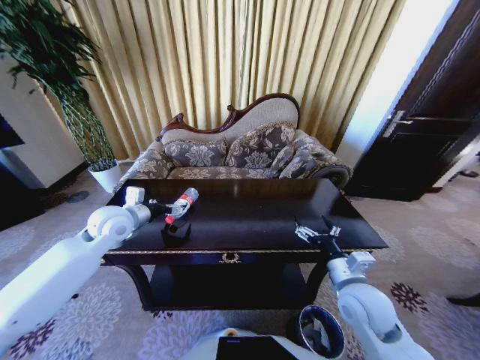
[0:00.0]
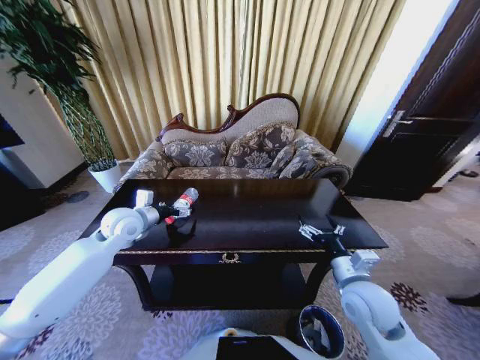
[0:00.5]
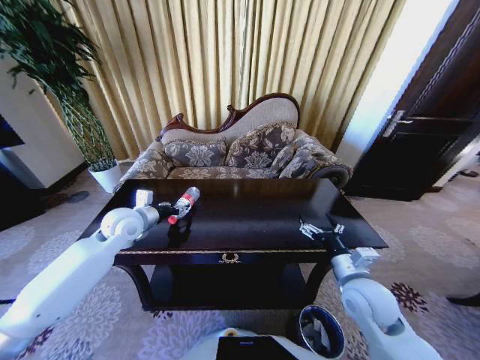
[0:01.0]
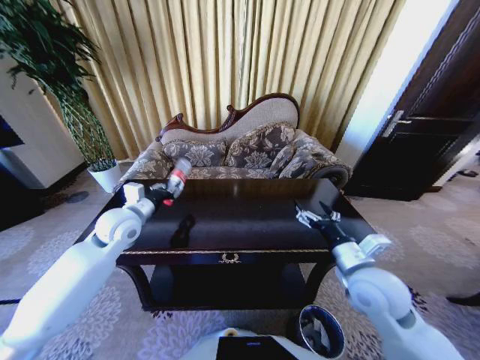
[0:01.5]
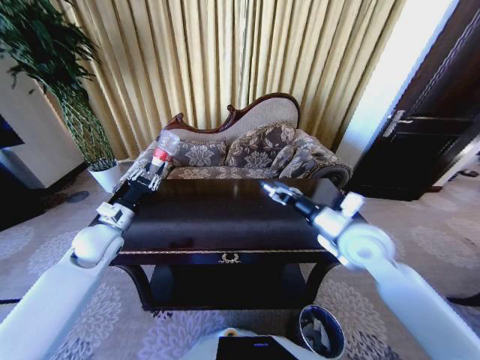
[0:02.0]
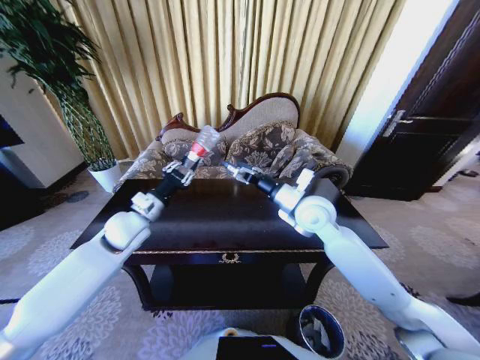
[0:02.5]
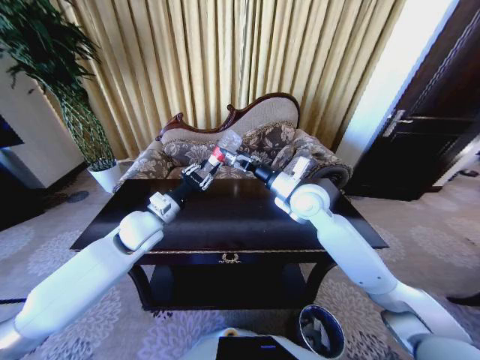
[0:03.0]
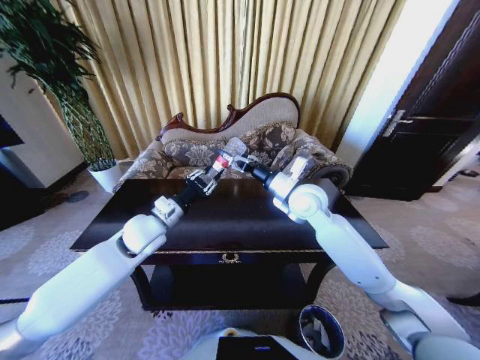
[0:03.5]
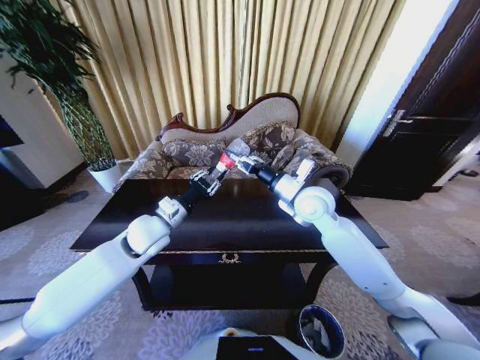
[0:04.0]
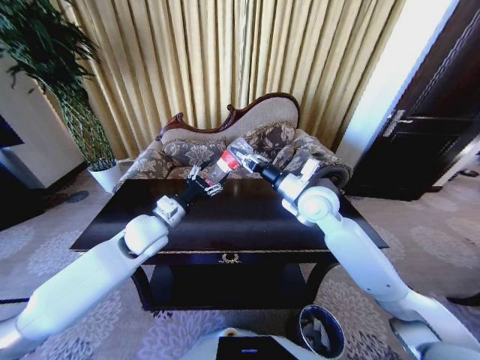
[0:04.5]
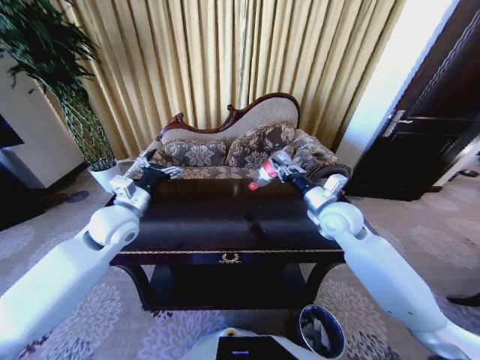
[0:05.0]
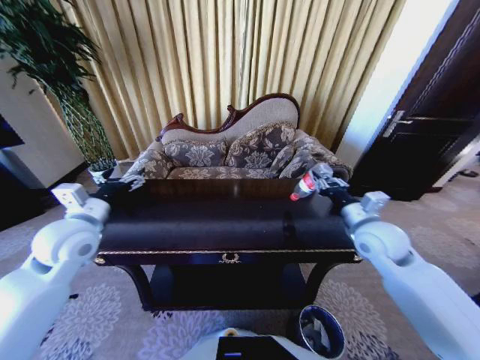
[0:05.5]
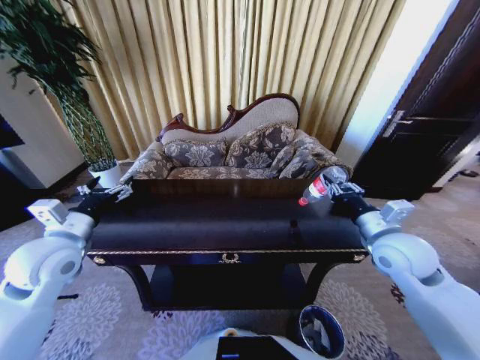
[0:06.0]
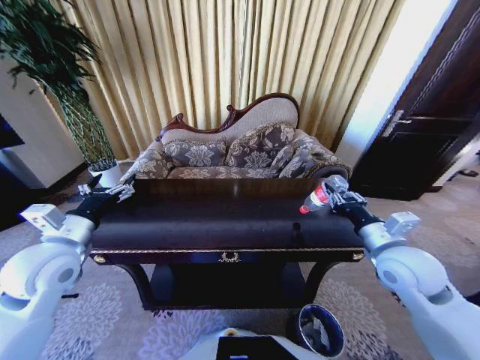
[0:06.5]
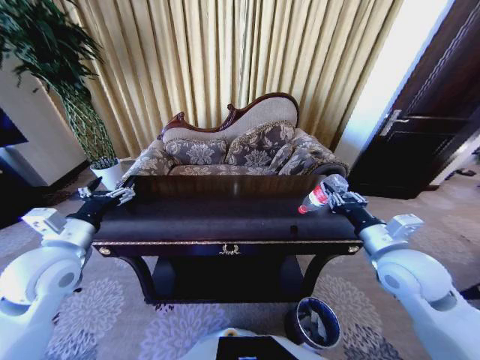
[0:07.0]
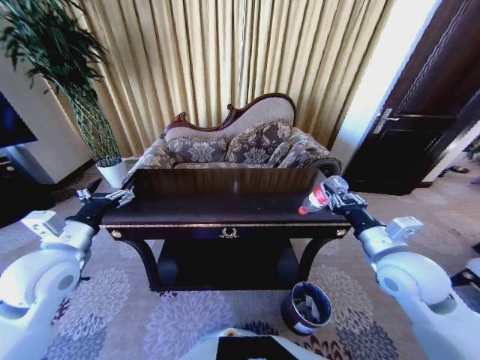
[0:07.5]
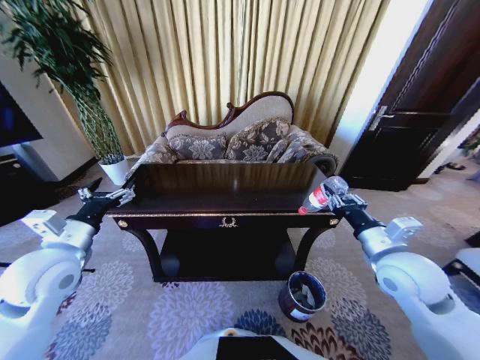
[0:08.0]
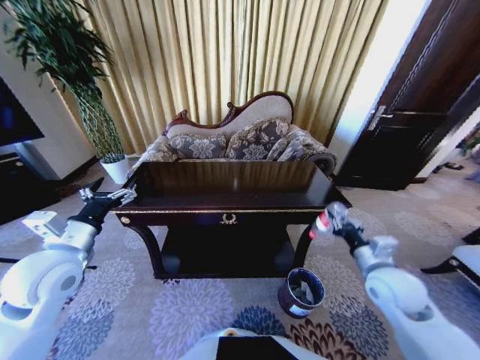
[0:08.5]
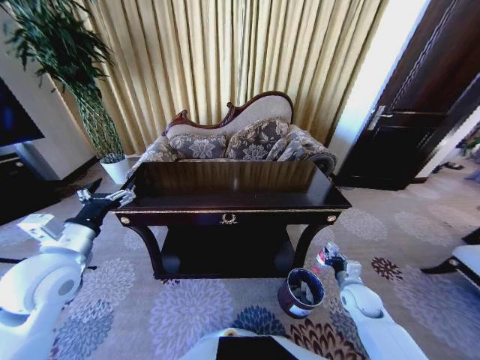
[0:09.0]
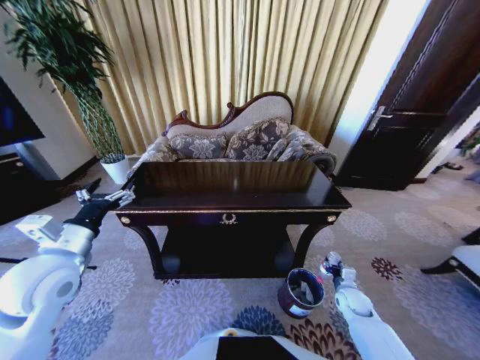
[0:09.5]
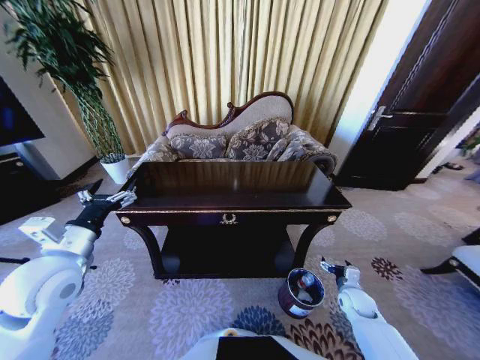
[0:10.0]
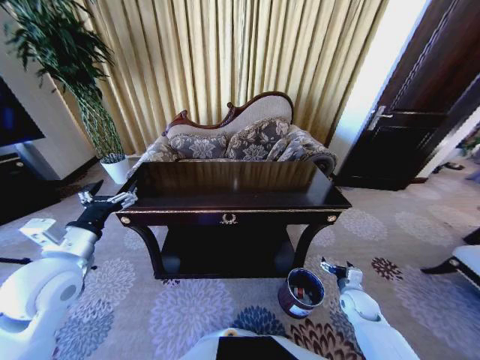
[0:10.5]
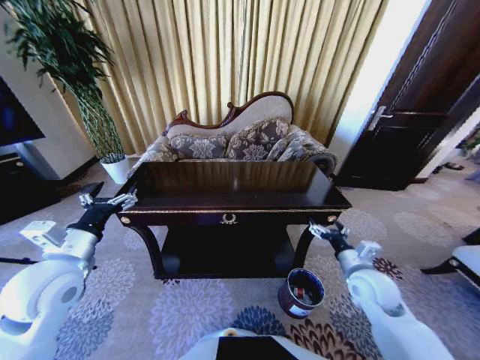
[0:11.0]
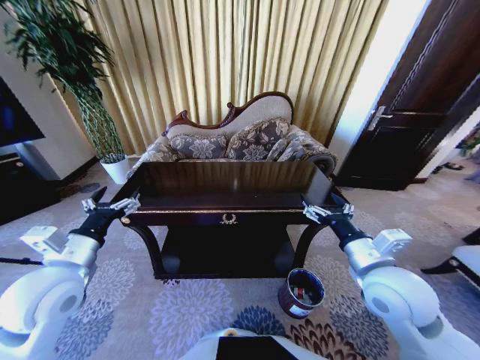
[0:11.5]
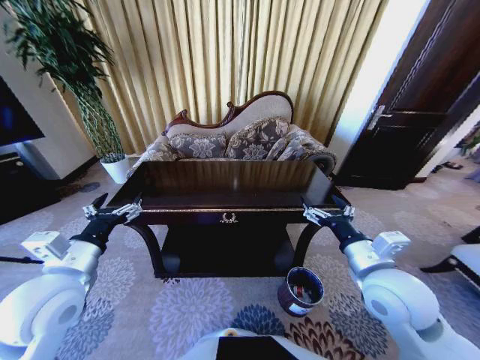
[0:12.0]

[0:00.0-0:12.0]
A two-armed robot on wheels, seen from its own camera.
Task of the whole recording: Move to the front of the table and place the trash on the table into the trash bin.
0:00.0 to 0:02.0: The left gripper changes place by about 5 cm, and closes. The right gripper goes some 15 cm upward and forward.
0:02.0 to 0:04.0: The left gripper shifts about 15 cm to the right; the right gripper is displaced forward and to the left by approximately 15 cm, and closes.
0:04.0 to 0:06.0: The right gripper moves to the right and backward, roughly 20 cm, while the left gripper moves to the left and backward, roughly 20 cm, and opens up.
0:08.0 to 0:10.0: The right gripper shifts roughly 30 cm downward, and opens its fingers.
0:10.0 to 0:12.0: The right gripper goes some 35 cm upward and to the left.

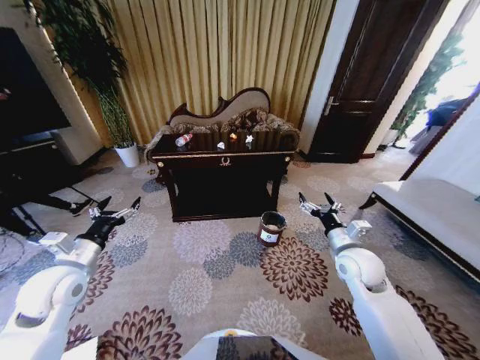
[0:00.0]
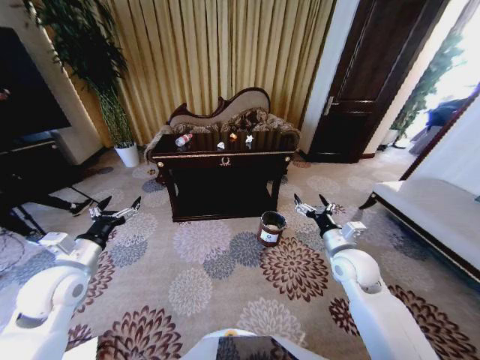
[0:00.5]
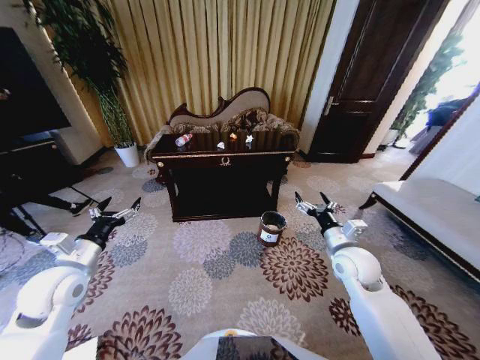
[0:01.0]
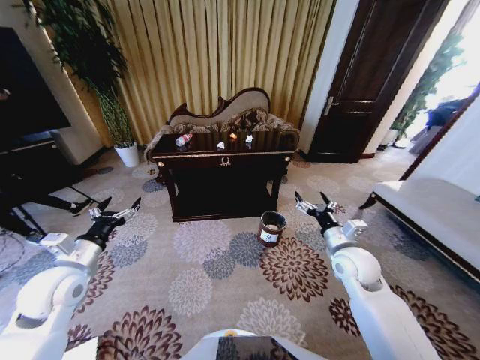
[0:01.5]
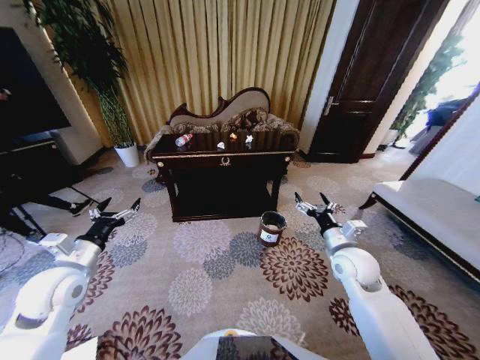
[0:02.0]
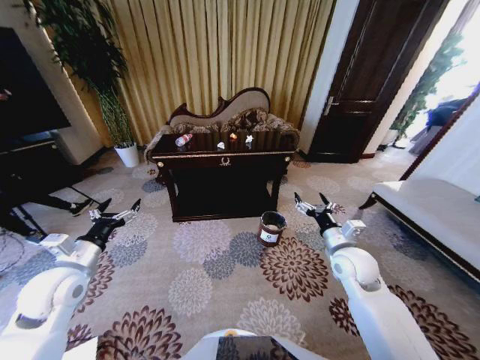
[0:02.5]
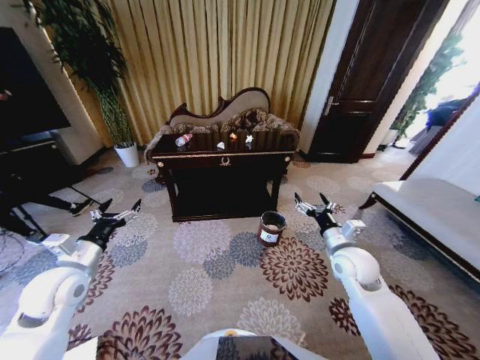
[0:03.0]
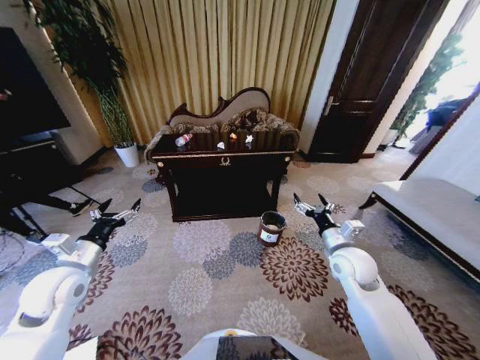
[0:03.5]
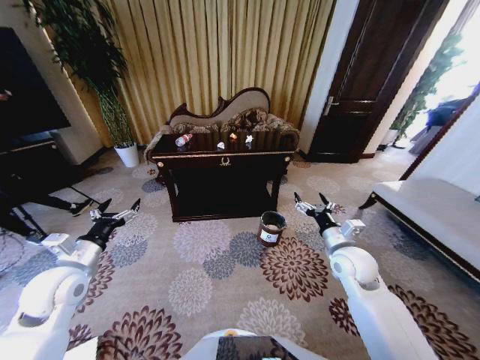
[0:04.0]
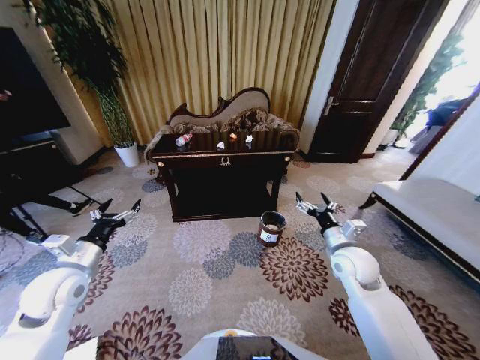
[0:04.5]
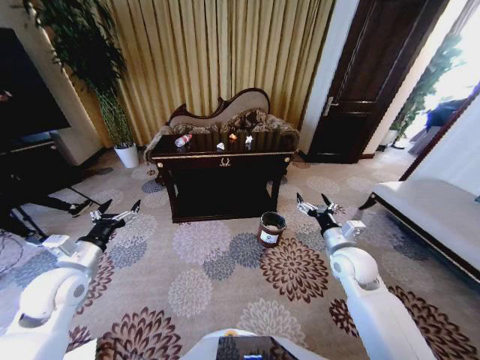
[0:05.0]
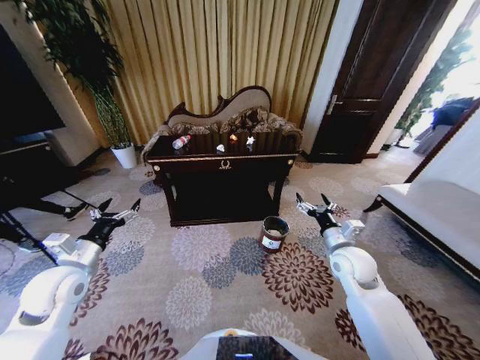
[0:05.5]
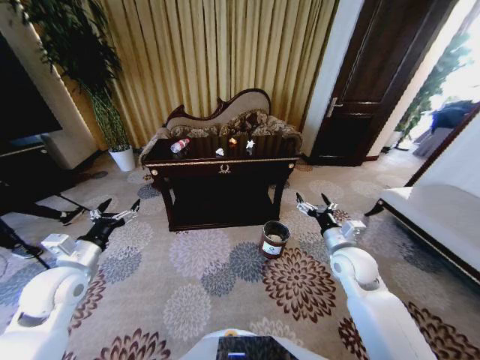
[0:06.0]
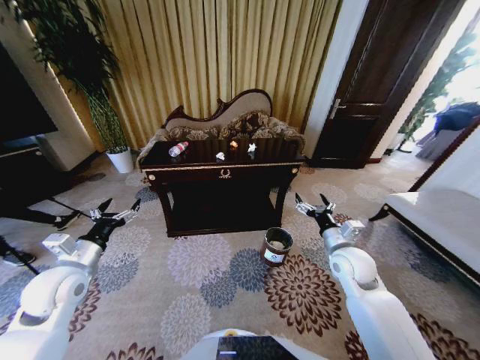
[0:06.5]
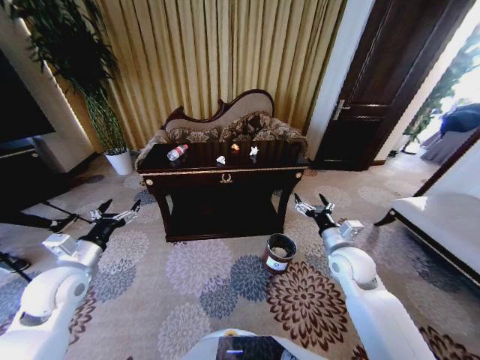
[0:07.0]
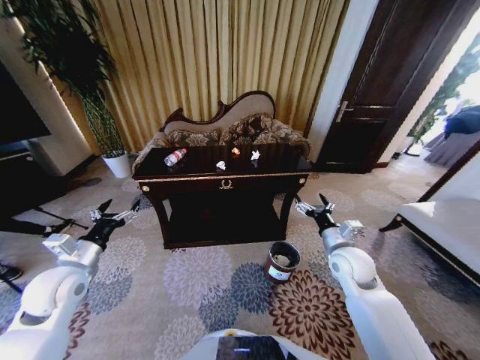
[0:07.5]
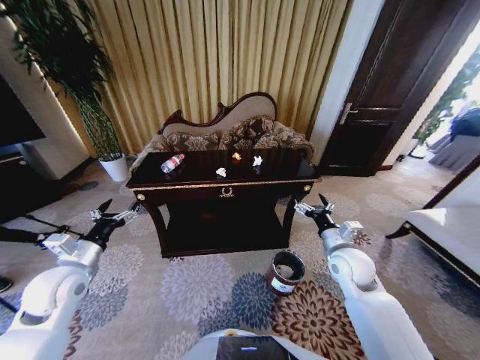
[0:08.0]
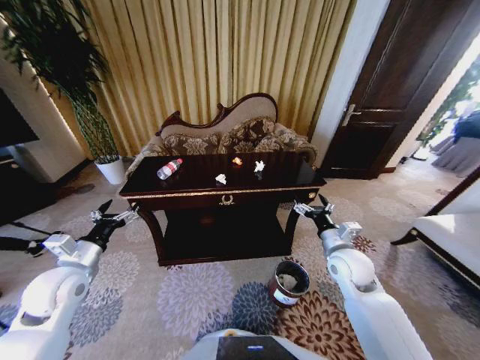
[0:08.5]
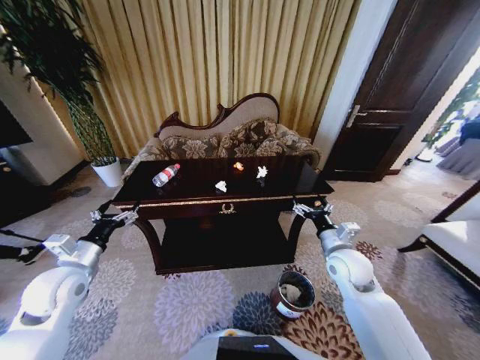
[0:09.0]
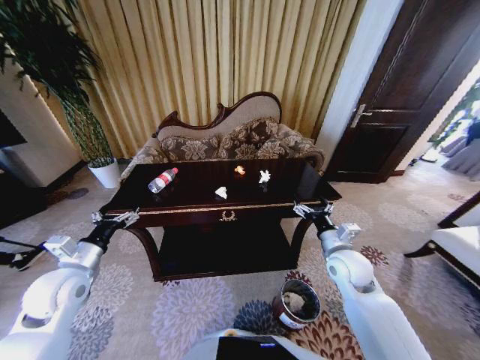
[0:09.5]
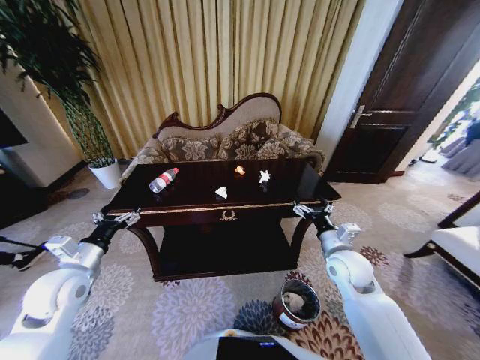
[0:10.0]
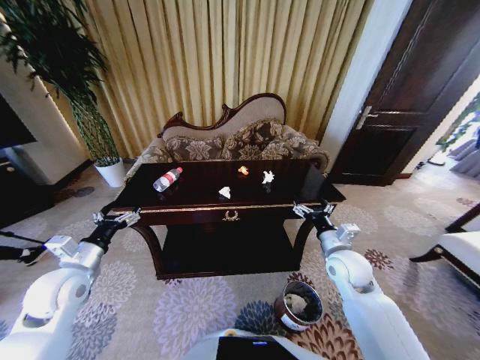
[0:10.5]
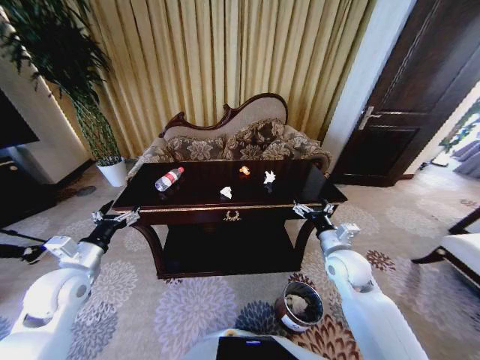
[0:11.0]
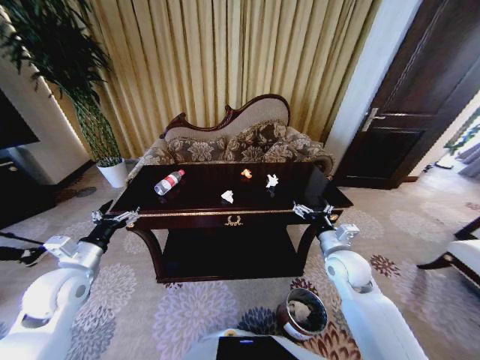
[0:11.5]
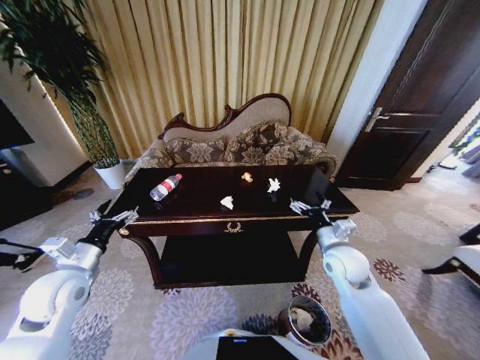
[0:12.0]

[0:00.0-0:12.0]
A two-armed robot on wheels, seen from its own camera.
Task of the whole recording: Move to the front of the table and place the trash on the table into the trash bin.
0:02.0 to 0:04.0: Both grippers stay put.

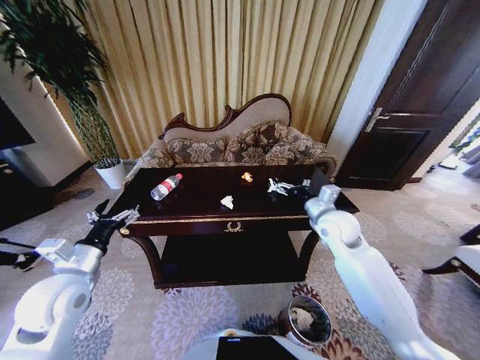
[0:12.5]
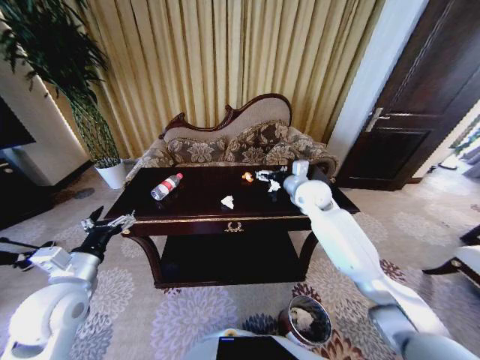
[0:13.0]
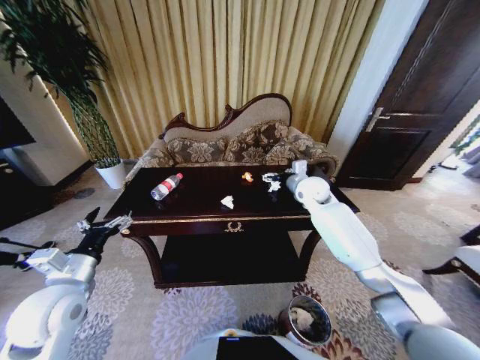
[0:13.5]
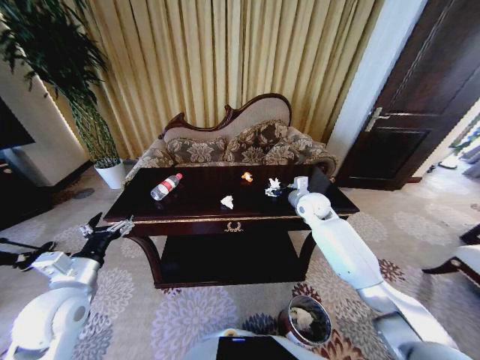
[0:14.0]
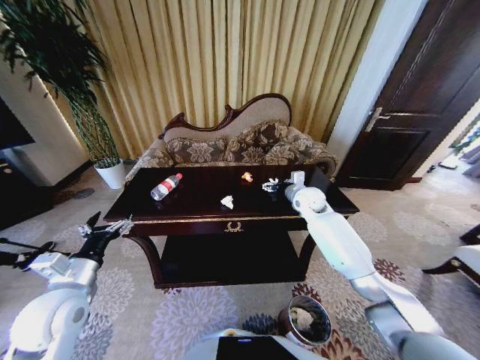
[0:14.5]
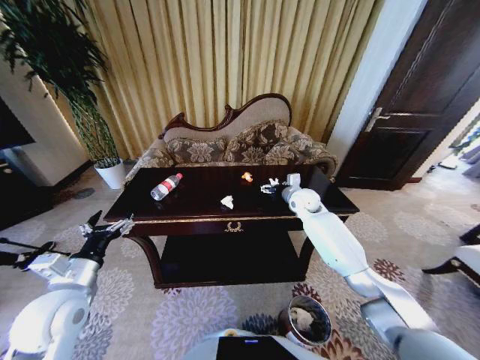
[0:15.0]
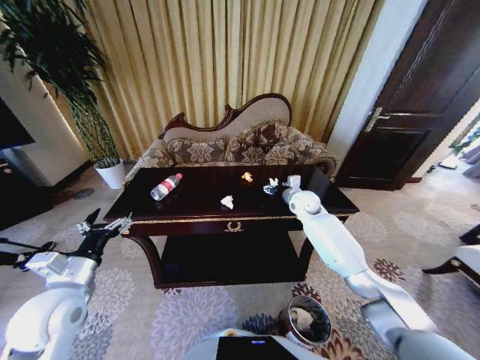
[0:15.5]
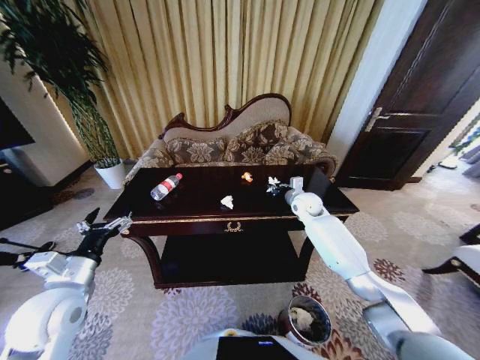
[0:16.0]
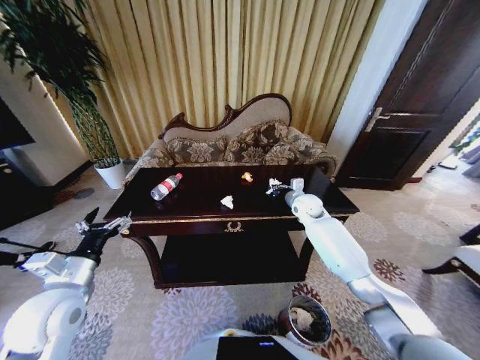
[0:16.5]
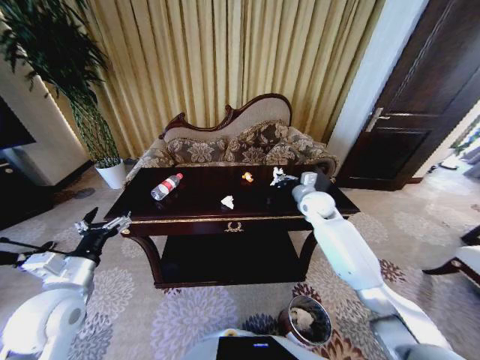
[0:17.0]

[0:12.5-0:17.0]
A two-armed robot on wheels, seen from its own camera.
Task of the whole recording: Move to the front of the table and place the trash on the table into the trash bin.
0:12.5 to 0:14.5: The right gripper moves forward, about 15 cm.
0:14.5 to 0:17.0: The right gripper closes.
